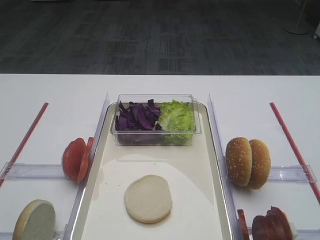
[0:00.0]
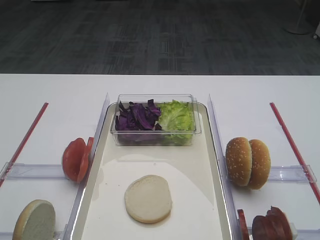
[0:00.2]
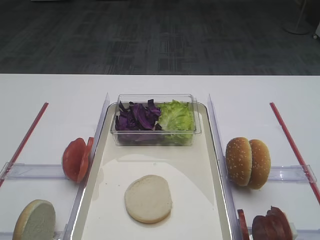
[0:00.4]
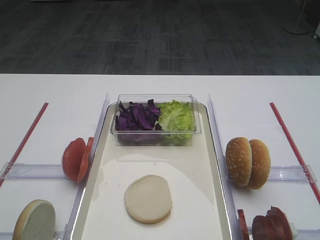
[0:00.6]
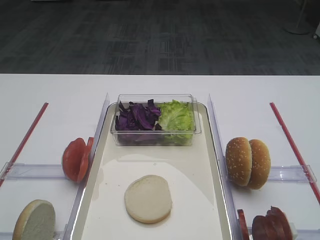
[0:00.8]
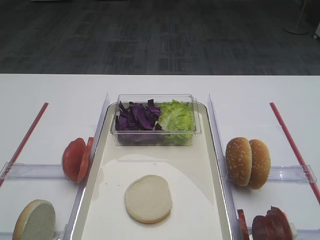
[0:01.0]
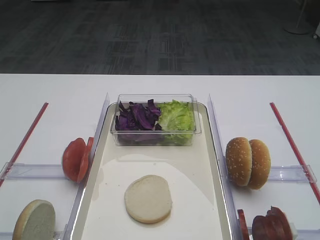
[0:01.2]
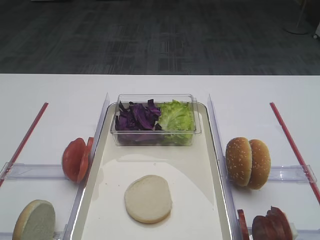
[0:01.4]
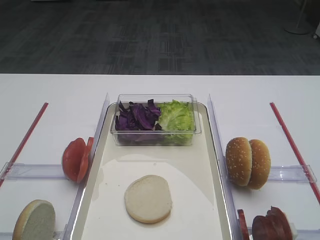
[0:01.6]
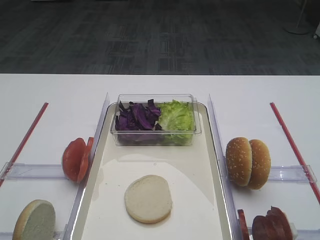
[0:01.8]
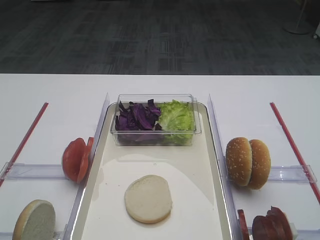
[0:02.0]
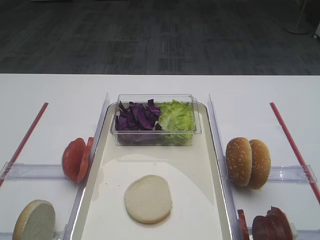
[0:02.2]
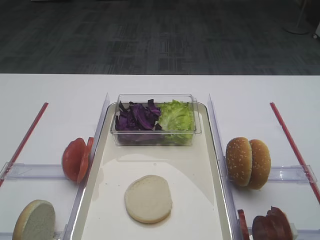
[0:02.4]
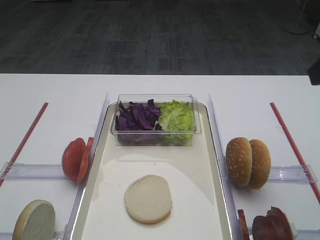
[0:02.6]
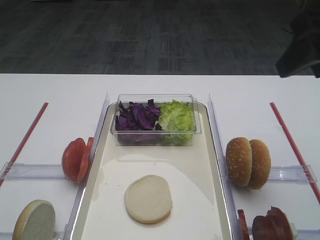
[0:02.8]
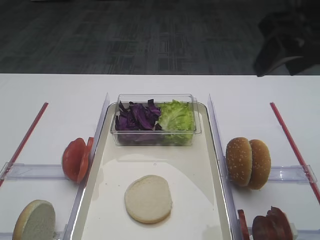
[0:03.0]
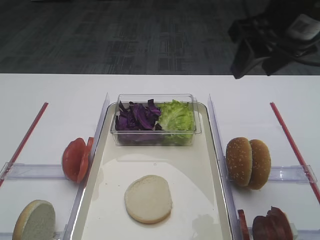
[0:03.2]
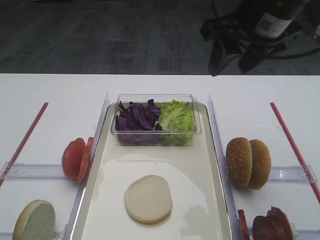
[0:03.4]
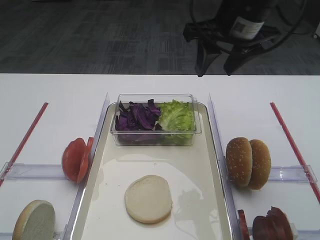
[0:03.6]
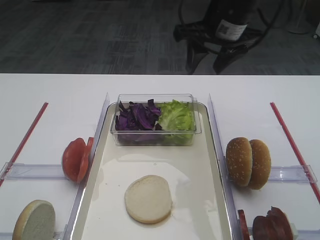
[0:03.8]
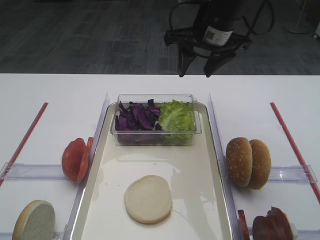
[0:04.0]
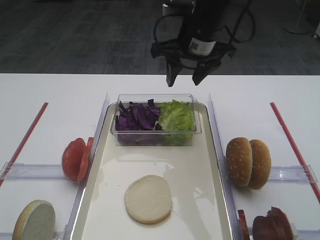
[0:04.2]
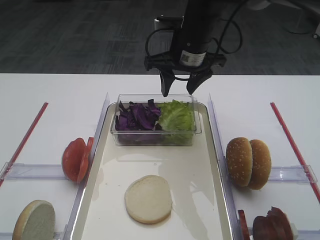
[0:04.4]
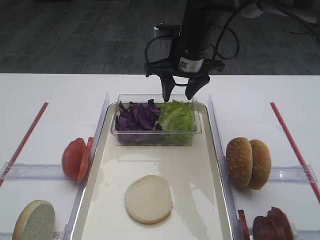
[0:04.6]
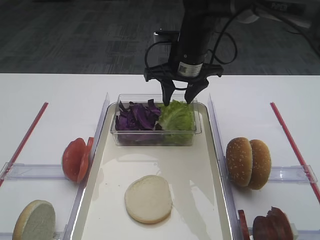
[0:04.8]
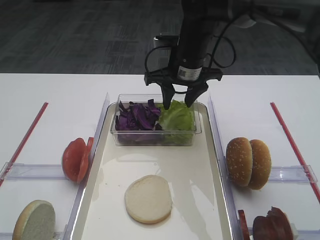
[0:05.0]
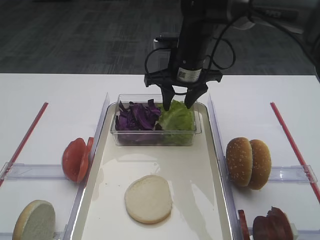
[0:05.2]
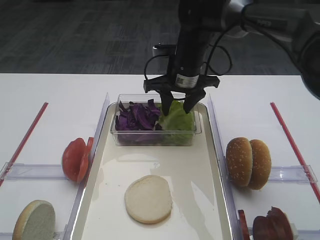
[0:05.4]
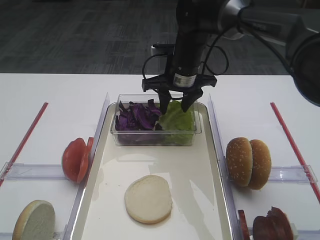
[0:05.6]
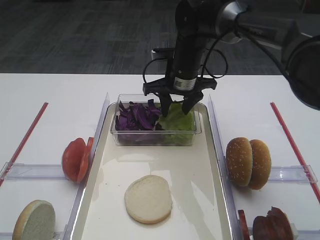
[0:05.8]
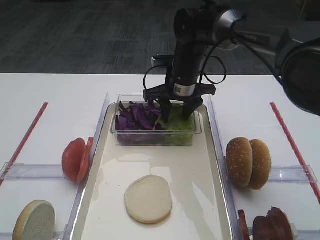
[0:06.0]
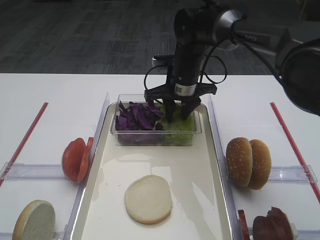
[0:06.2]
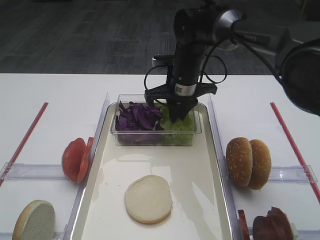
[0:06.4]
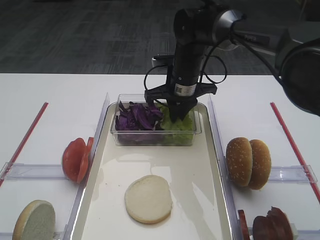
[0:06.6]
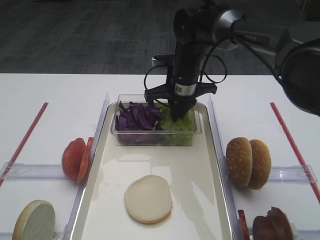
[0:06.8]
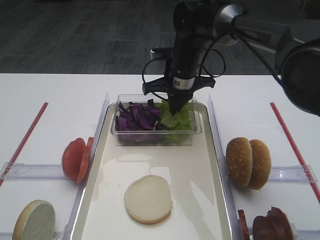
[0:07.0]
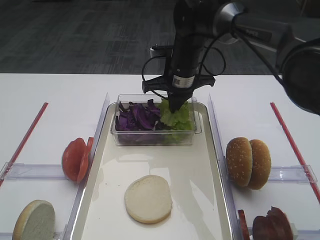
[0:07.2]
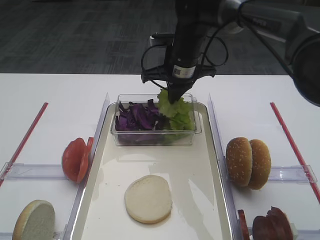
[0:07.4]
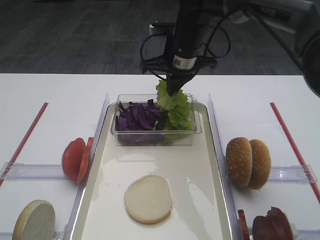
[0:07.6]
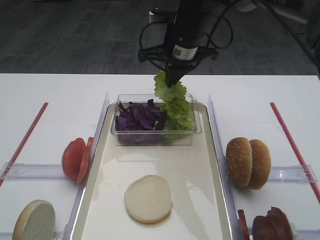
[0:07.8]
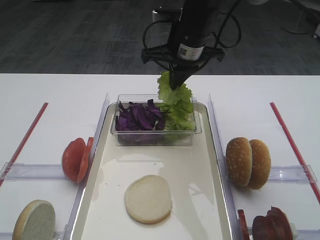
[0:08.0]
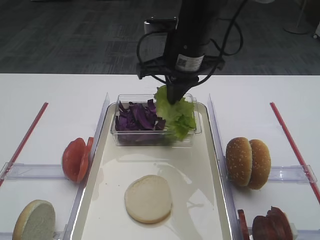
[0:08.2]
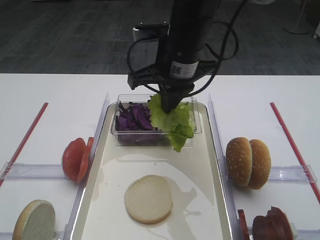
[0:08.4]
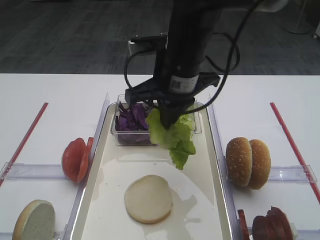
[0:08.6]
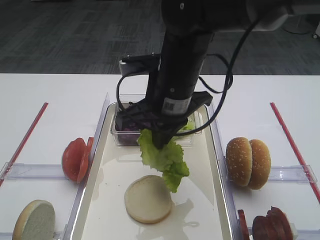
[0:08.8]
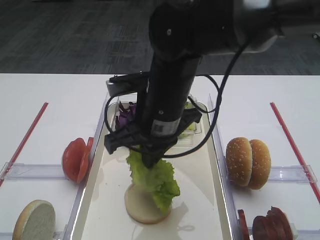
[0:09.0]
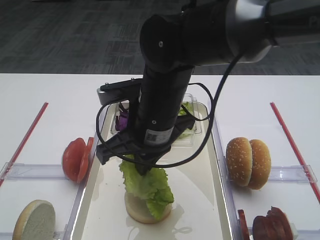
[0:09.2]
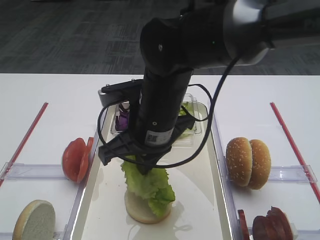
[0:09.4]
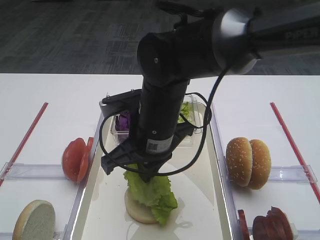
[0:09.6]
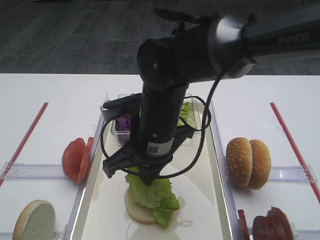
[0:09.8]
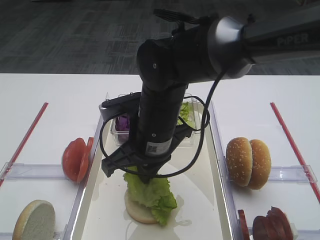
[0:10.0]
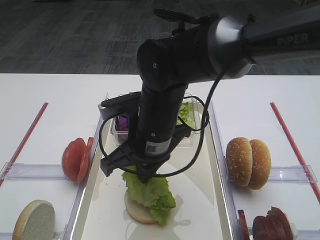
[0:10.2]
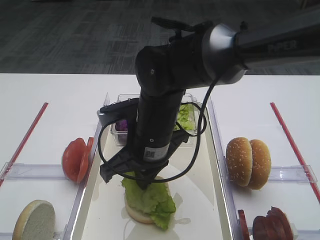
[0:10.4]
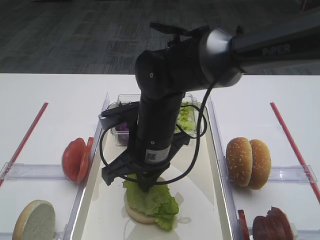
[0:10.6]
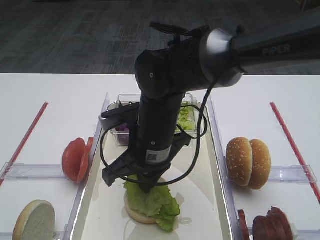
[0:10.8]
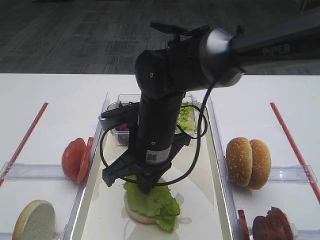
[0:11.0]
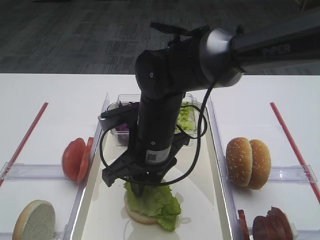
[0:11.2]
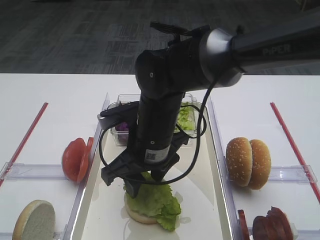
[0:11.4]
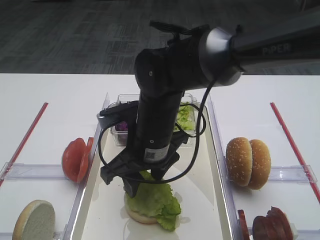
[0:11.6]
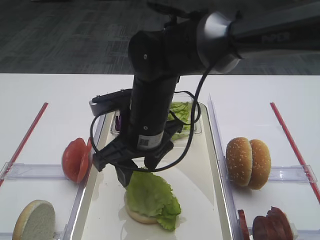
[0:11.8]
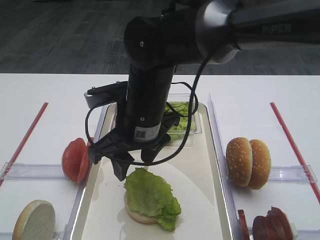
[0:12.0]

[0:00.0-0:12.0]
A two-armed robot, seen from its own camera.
Step, 0:00.0 to 0:07.6: Pick up the lettuce leaf with the right gripper.
Step, 0:08.0 to 0:11.8: Place the lettuce leaf on the bread slice with the right gripper.
0:01.6 to 0:03.0: The right gripper heads forward, covering some 25 cm.
0:03.0 to 0:04.4: The right gripper moves forward, to the left and downward, roughly 25 cm.
0:04.4 to 0:06.0: The right gripper is displaced downward by roughly 10 cm.
0:06.0 to 0:07.6: The right gripper is displaced upward by roughly 5 cm, and closes up.
0:07.6 to 0:09.0: The right gripper moves backward, approximately 15 cm.
0:09.0 to 0:10.4: The grippers make only small movements.
0:10.4 to 0:12.0: The right gripper opens.

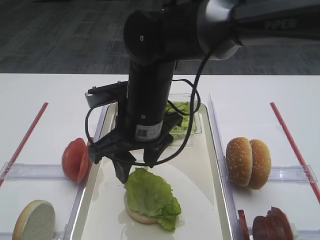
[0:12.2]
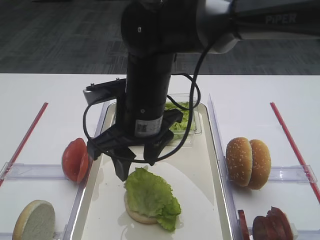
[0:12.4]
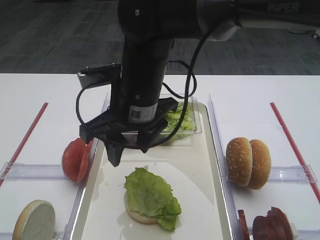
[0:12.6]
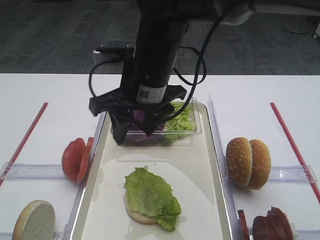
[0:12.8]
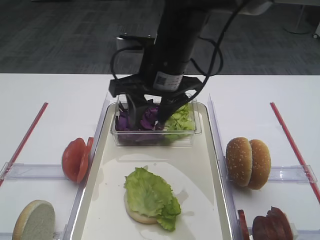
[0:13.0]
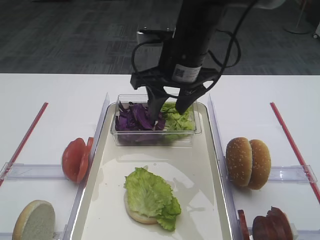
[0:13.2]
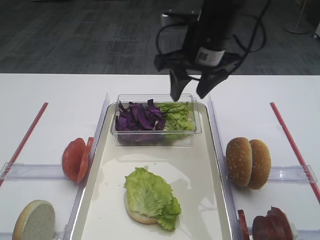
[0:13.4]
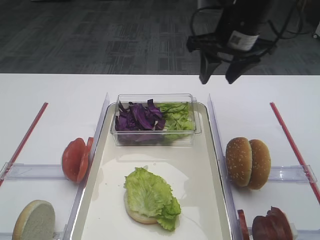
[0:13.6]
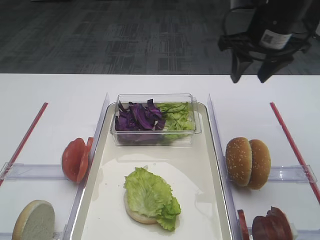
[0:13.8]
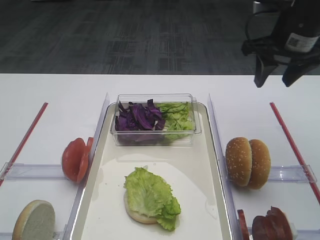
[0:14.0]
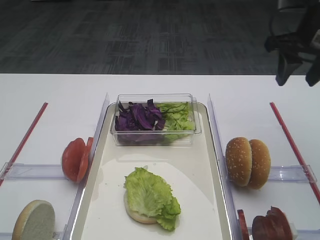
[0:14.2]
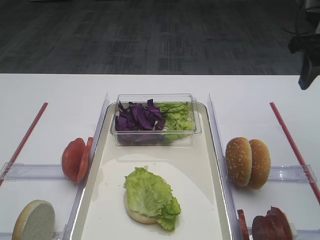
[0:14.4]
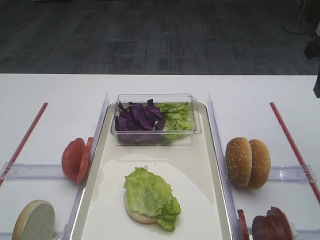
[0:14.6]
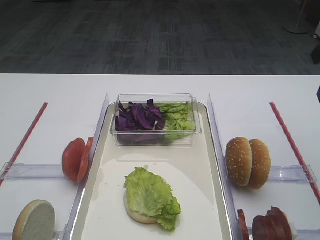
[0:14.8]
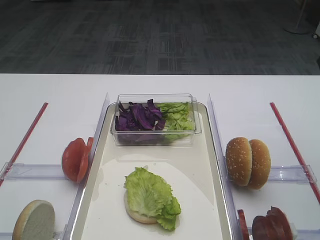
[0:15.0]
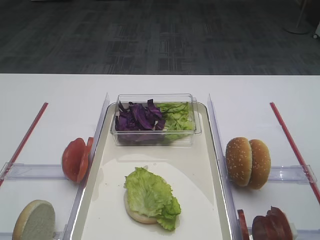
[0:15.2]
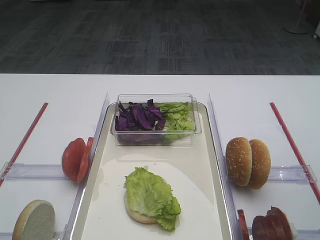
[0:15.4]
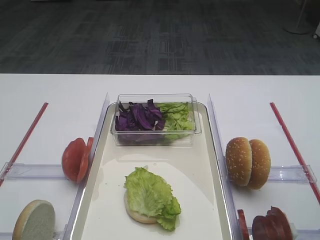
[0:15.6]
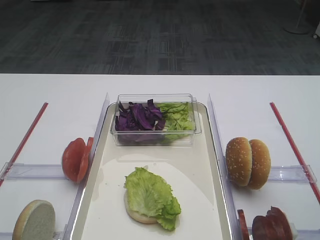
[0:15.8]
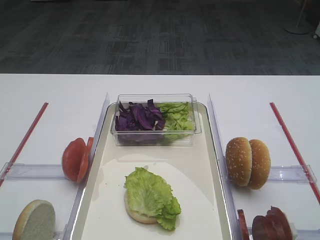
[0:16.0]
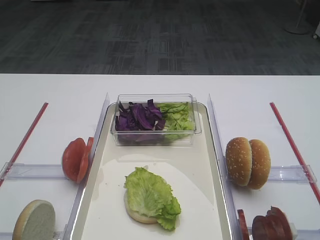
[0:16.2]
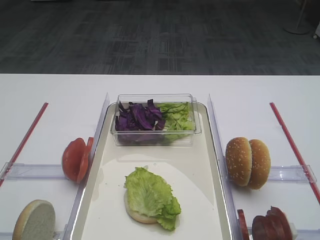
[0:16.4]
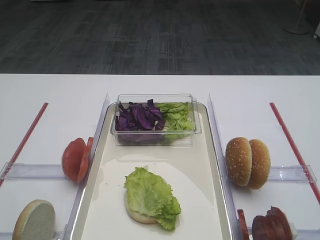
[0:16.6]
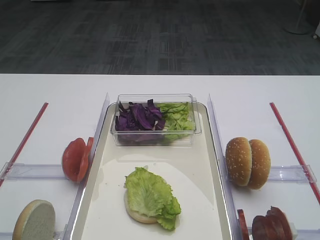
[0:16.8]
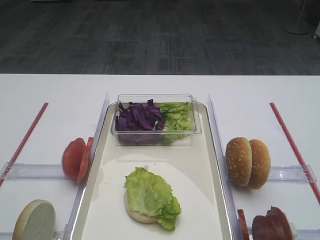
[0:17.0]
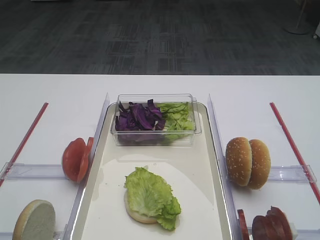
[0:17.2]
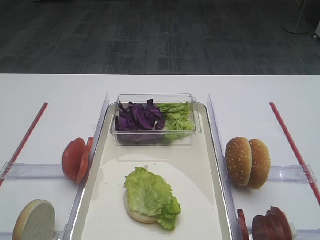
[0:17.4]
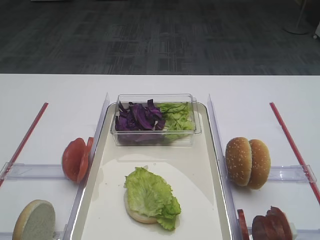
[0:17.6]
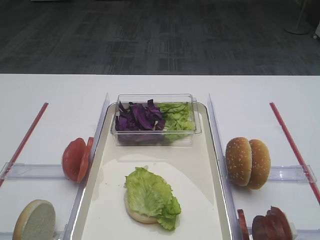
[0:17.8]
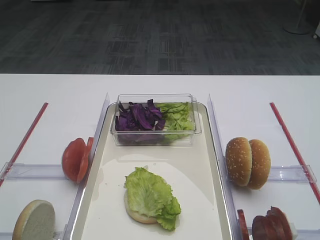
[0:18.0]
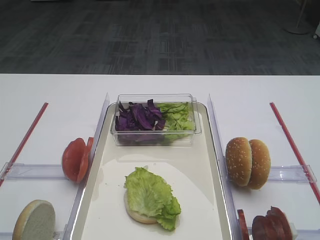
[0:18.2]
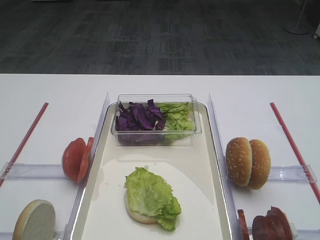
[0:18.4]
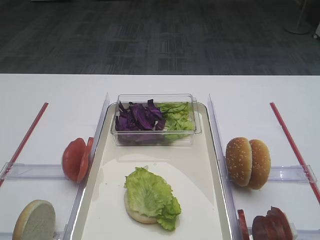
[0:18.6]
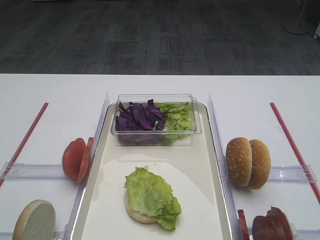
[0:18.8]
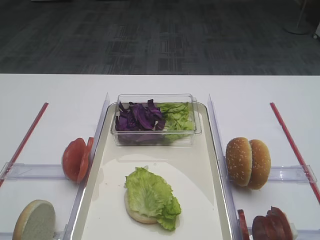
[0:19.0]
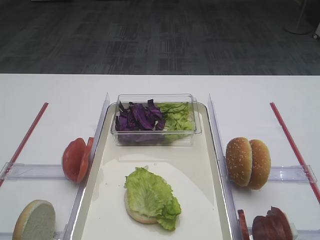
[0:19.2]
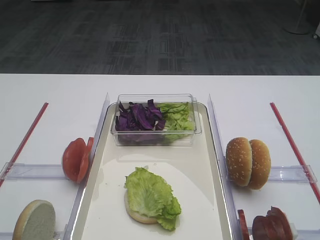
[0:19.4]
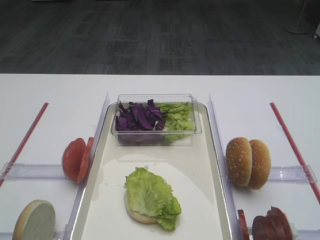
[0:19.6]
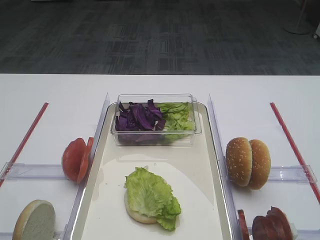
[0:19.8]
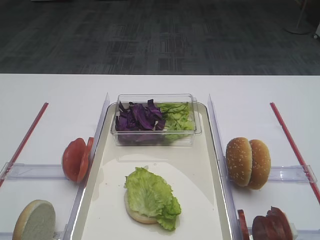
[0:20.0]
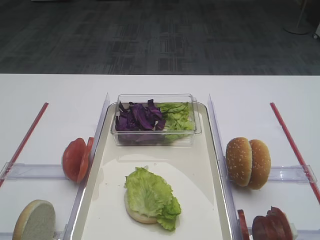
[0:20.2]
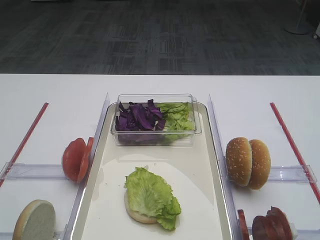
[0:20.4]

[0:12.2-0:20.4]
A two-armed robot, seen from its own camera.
0:12.2 to 0:13.8: The right gripper travels to the right and forward by approximately 25 cm.
0:13.8 to 0:15.4: The right gripper moves backward and to the right, roughly 20 cm.
0:17.2 to 0:20.4: Neither gripper changes place.

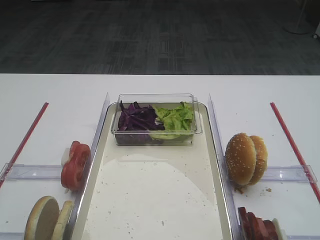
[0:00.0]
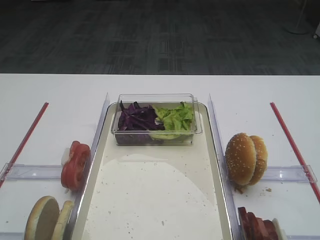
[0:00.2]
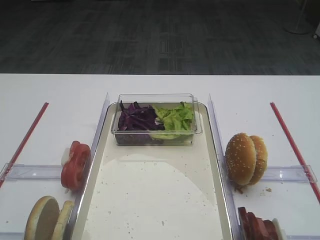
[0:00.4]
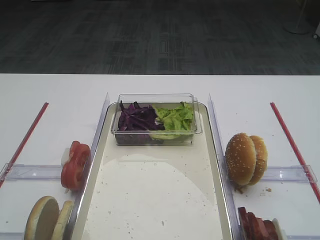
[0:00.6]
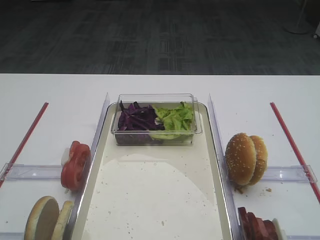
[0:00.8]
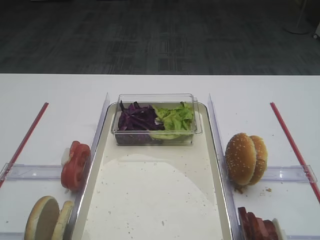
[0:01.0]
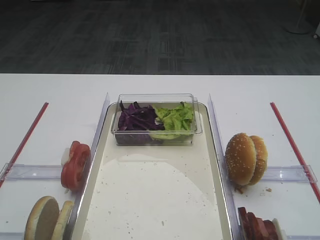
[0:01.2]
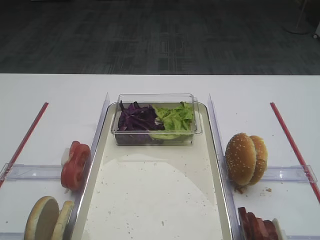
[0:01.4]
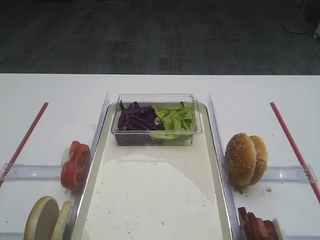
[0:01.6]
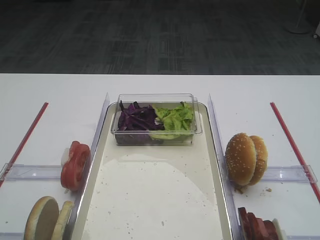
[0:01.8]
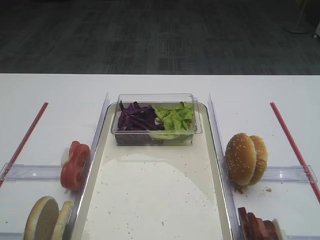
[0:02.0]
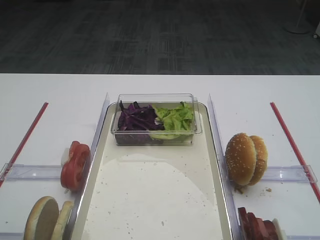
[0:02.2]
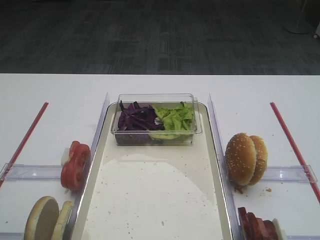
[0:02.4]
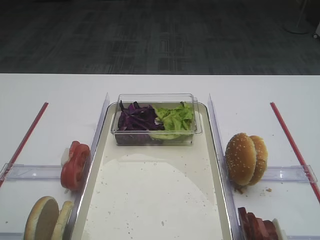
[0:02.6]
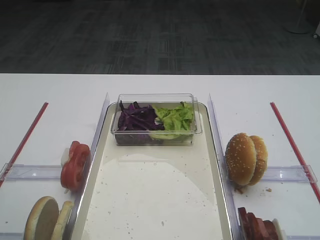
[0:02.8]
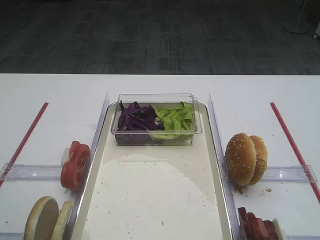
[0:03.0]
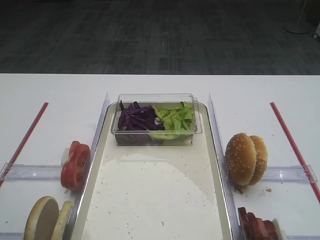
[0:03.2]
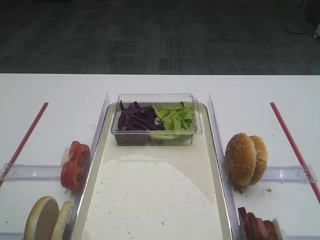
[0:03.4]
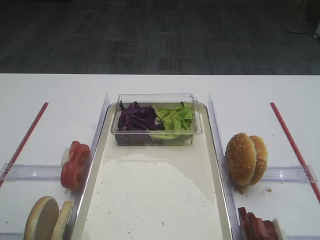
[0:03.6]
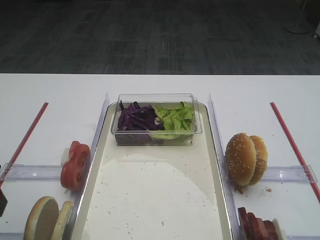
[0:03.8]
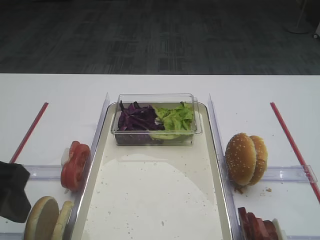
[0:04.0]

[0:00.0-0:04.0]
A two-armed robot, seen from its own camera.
0:02.6 to 0:04.0: The left gripper goes roughly 5 cm to the right.
